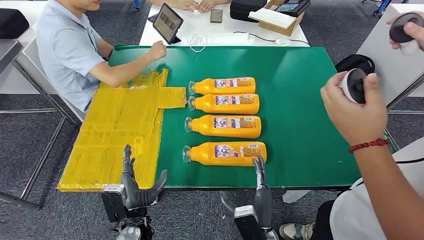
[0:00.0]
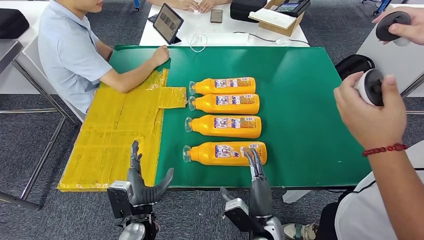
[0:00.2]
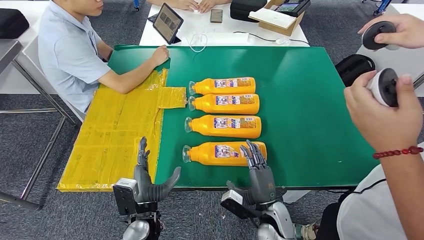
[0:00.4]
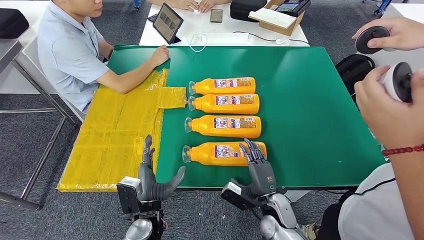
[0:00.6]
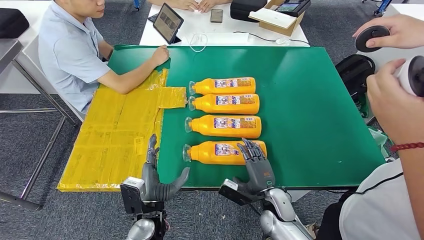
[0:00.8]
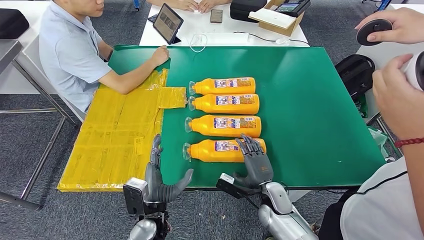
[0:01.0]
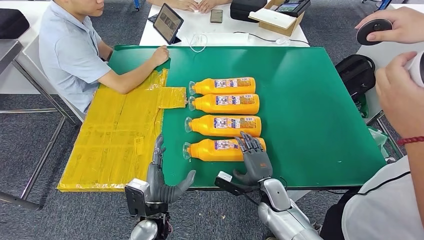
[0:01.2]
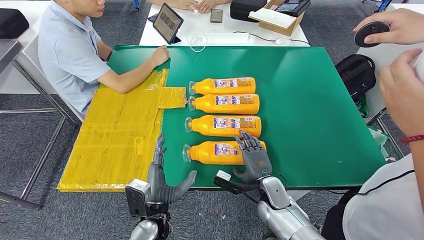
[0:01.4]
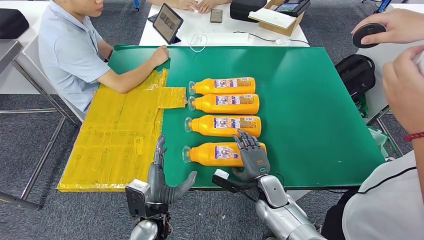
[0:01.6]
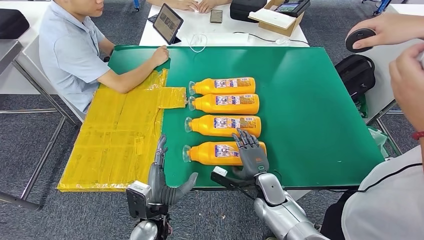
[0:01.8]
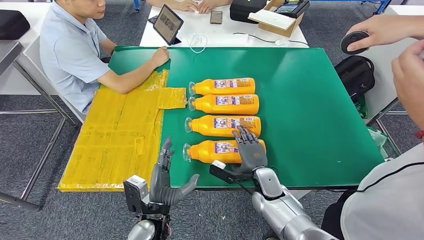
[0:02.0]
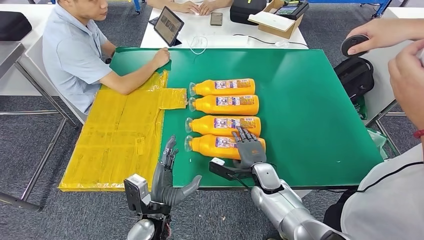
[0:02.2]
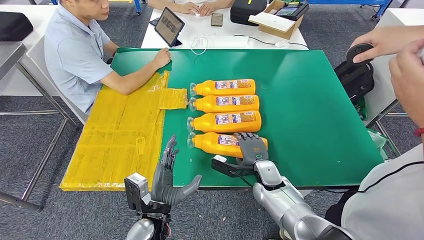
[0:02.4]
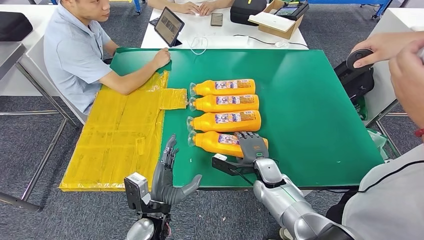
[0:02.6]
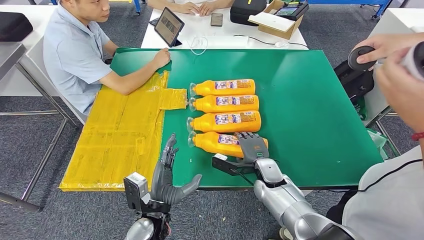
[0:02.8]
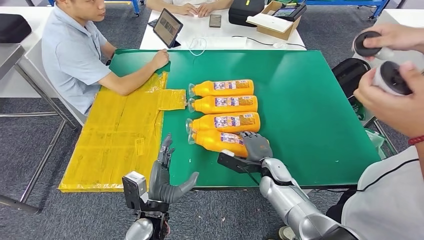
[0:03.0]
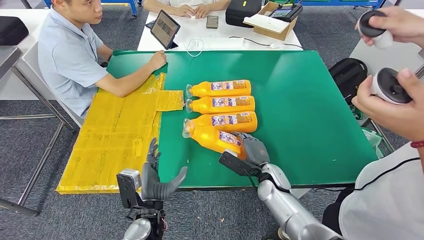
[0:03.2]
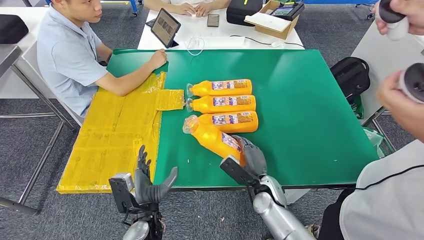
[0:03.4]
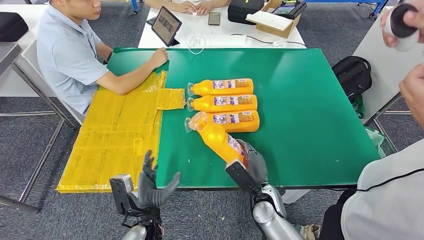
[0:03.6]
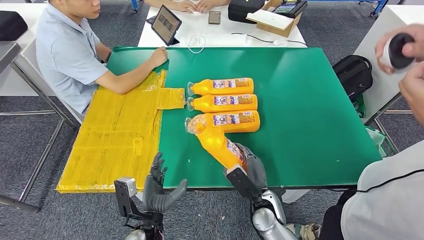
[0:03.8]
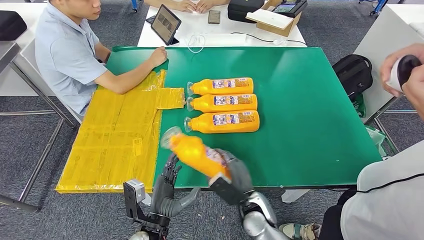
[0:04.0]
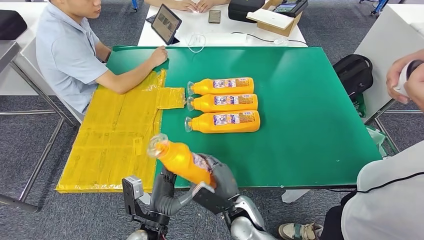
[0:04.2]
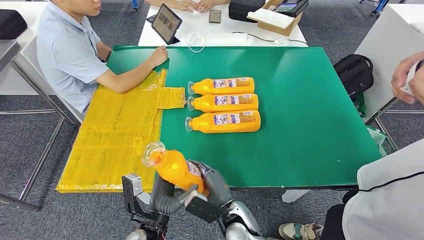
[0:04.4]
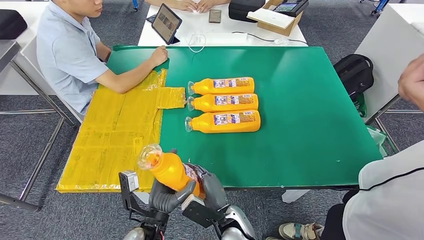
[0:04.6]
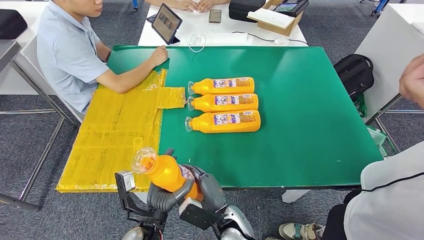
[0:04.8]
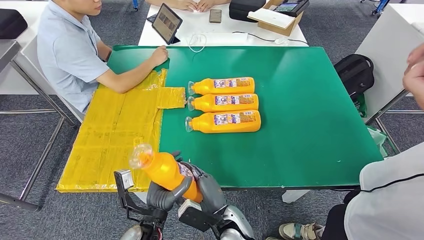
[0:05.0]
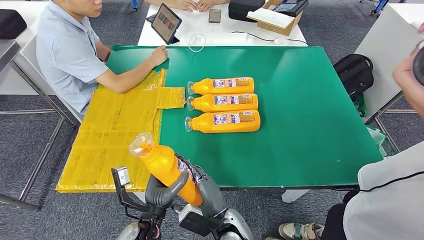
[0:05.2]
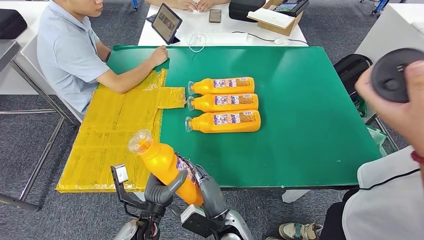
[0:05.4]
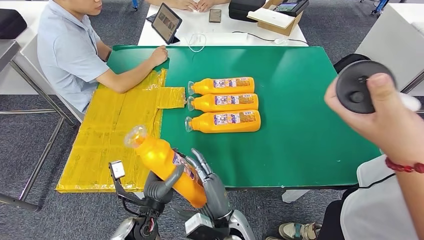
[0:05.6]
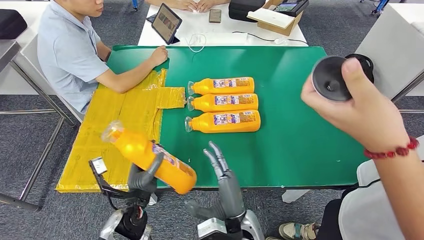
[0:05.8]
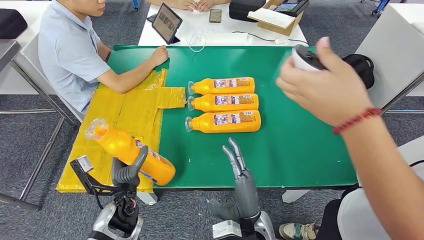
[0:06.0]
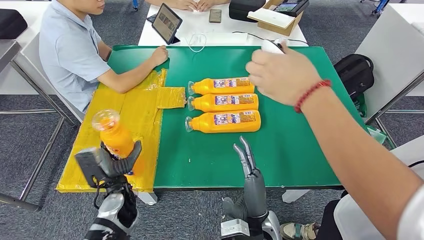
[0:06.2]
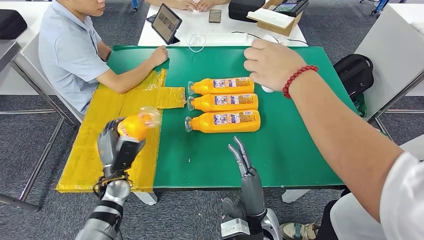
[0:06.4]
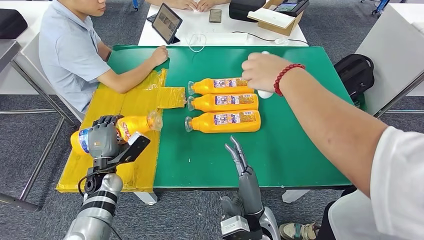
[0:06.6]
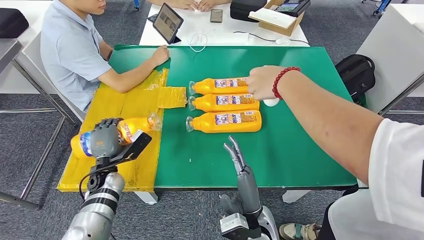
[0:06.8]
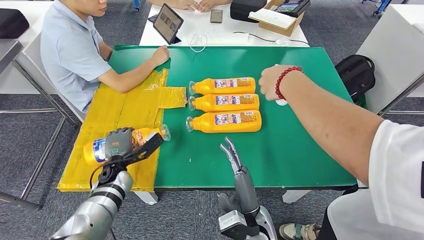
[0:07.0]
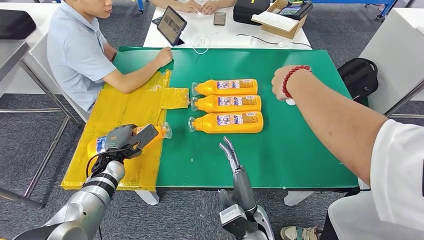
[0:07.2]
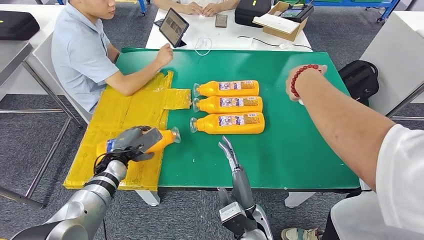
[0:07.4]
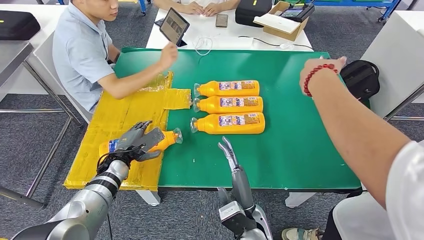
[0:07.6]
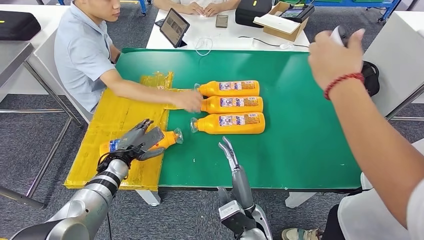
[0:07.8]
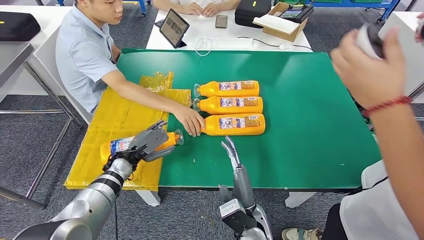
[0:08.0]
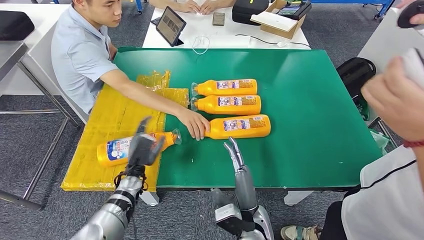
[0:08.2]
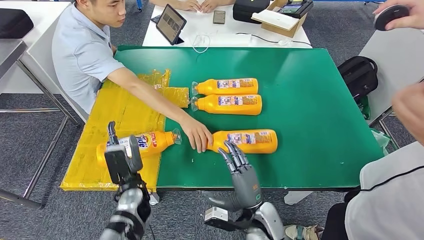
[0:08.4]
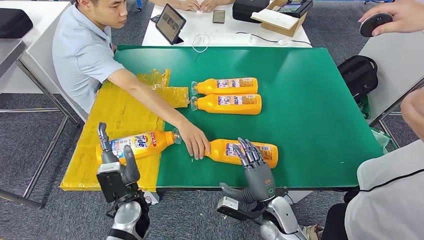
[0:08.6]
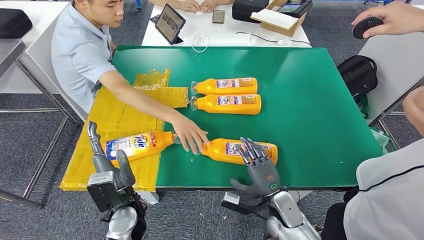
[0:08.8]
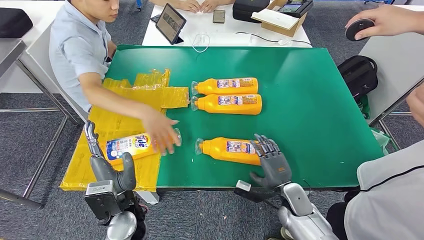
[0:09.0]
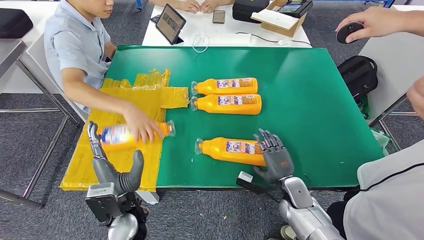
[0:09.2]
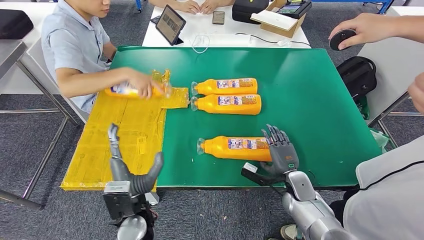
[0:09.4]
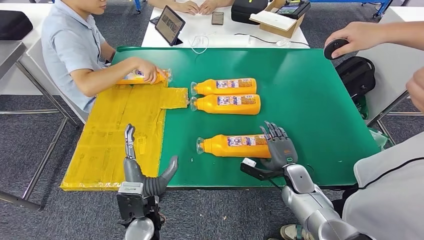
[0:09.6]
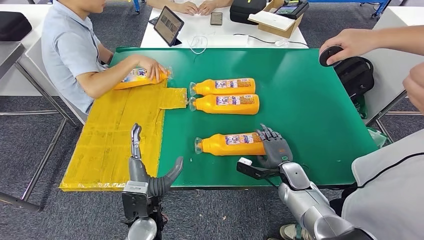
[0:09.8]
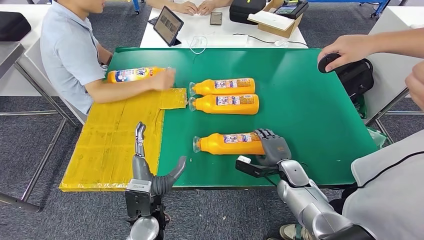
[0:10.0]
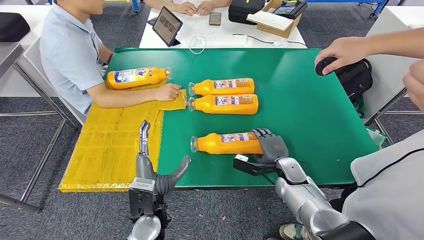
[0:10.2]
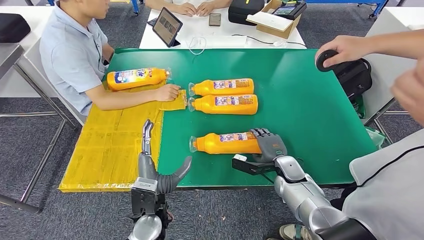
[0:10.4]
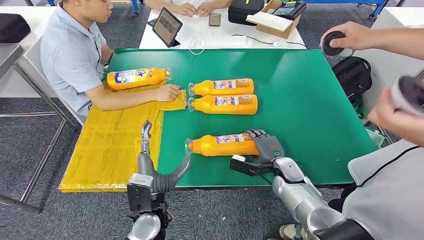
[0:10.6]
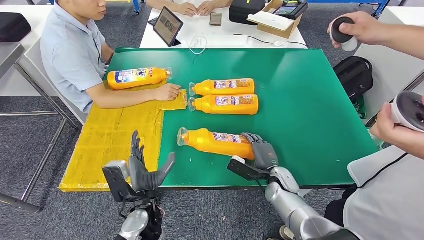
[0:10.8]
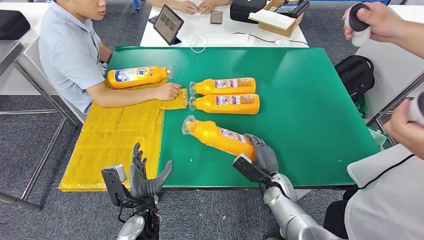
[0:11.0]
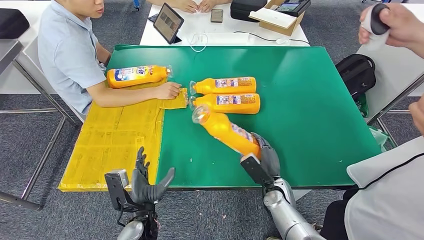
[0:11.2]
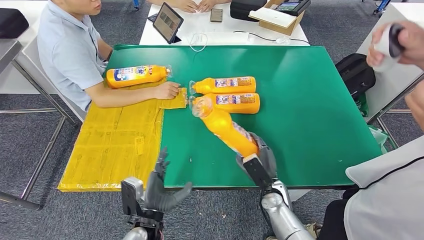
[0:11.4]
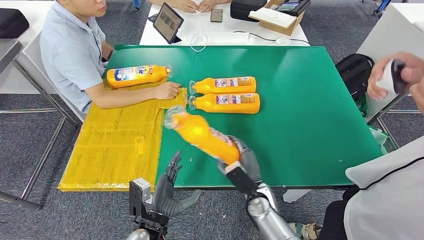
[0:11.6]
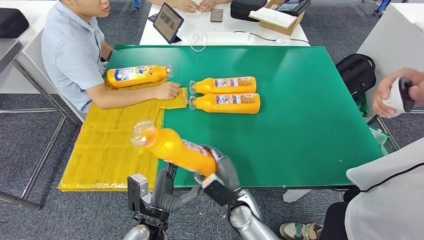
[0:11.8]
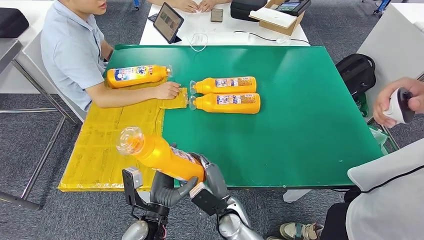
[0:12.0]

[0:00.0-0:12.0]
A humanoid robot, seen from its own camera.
Step, 0:00.0 to 0:05.4: Take the fast-moving consumer goods bottle from the table.
Step, 0:05.6 to 0:08.2: Flip the fast-moving consumer goods bottle to the front side.

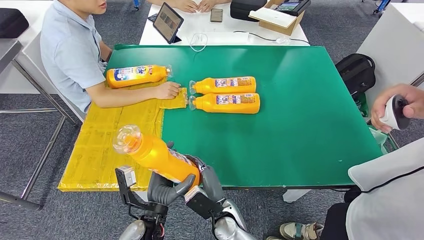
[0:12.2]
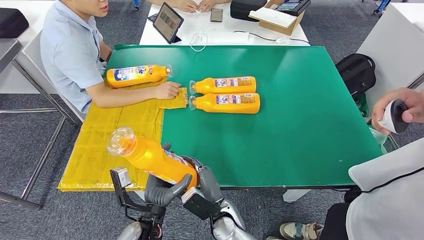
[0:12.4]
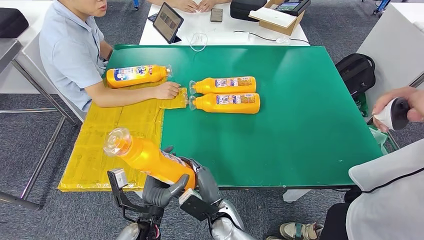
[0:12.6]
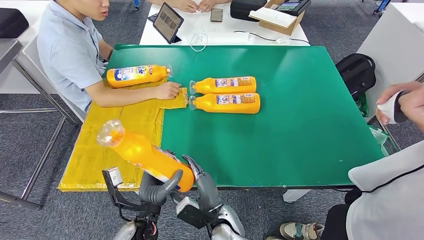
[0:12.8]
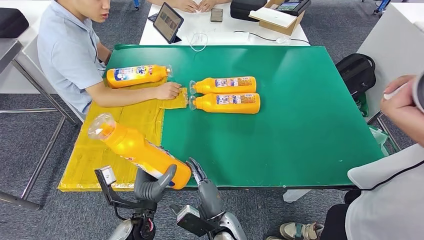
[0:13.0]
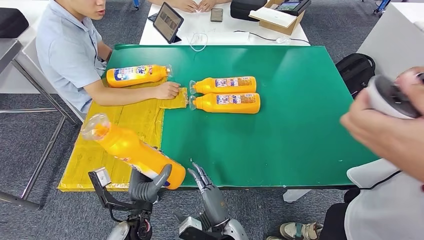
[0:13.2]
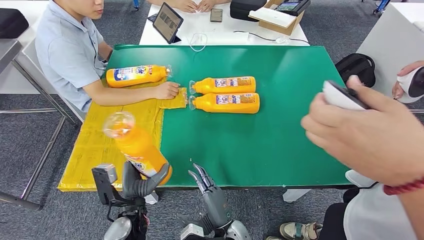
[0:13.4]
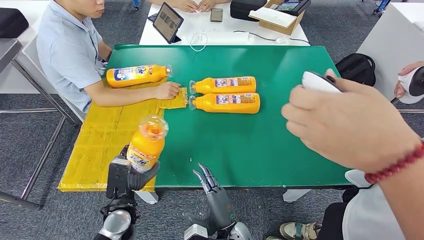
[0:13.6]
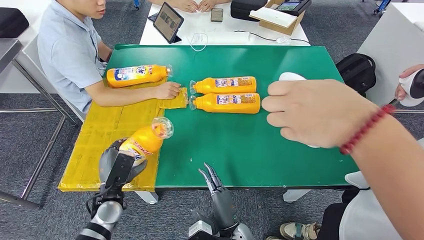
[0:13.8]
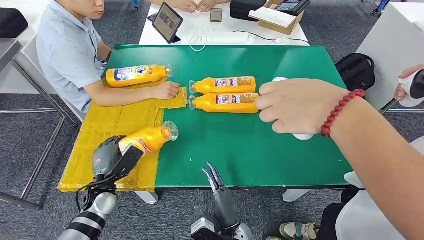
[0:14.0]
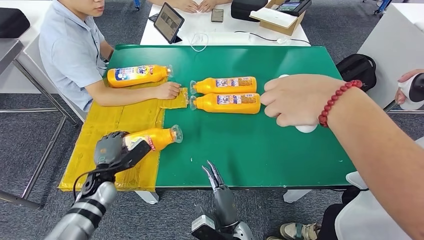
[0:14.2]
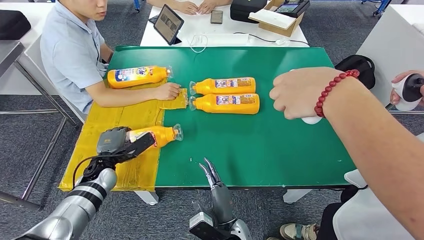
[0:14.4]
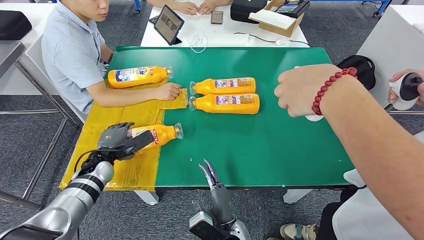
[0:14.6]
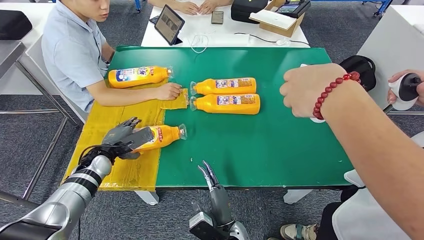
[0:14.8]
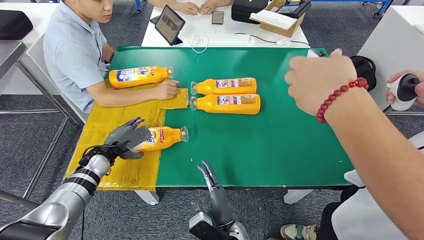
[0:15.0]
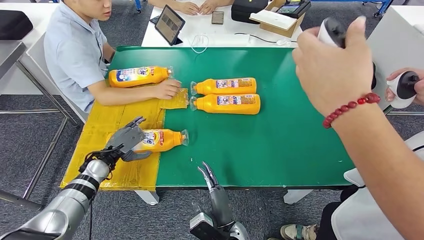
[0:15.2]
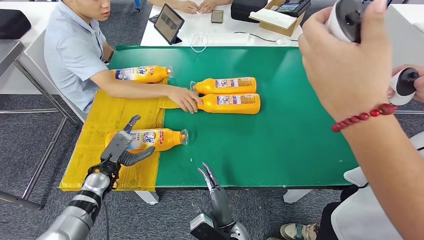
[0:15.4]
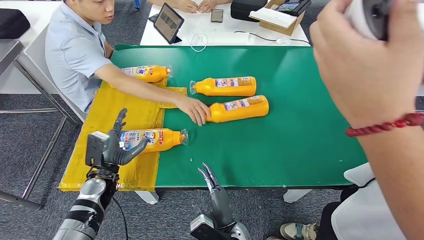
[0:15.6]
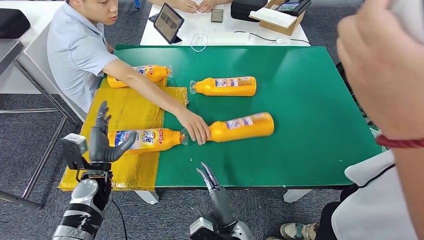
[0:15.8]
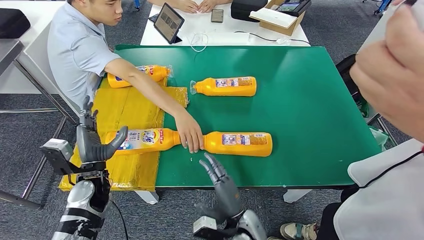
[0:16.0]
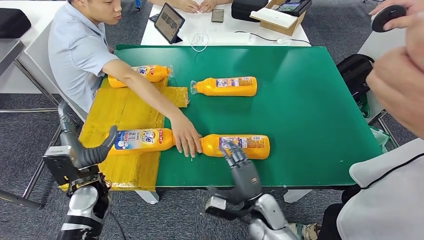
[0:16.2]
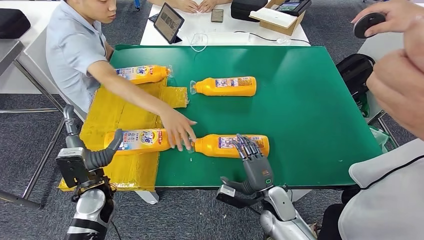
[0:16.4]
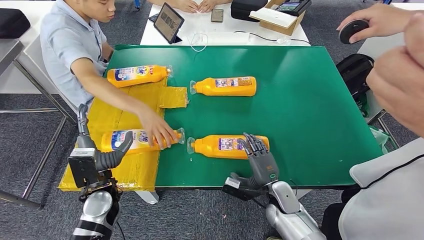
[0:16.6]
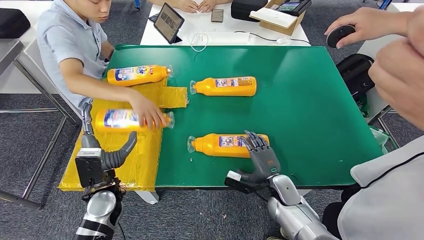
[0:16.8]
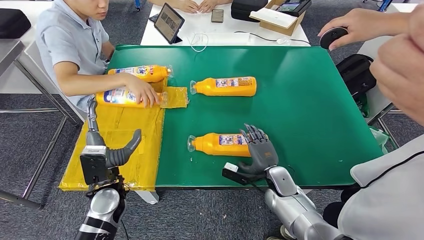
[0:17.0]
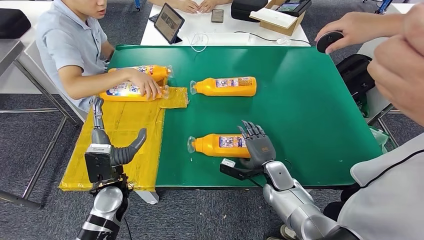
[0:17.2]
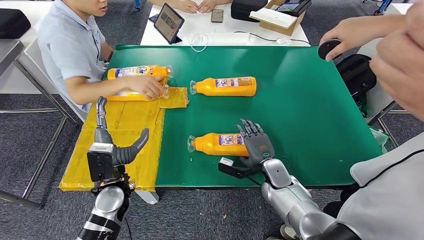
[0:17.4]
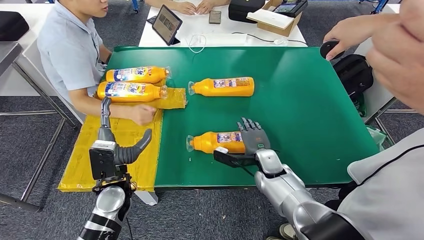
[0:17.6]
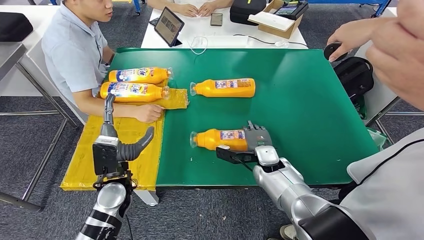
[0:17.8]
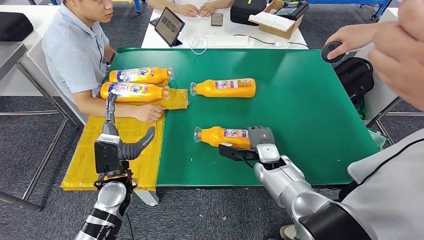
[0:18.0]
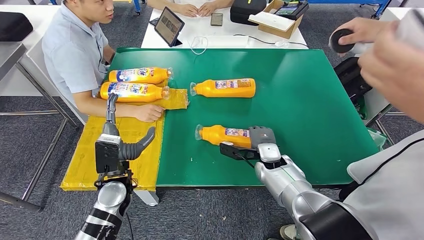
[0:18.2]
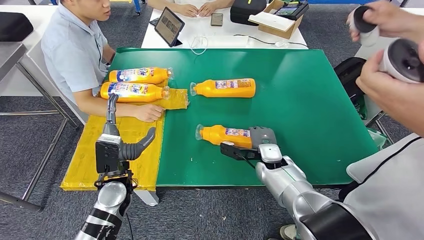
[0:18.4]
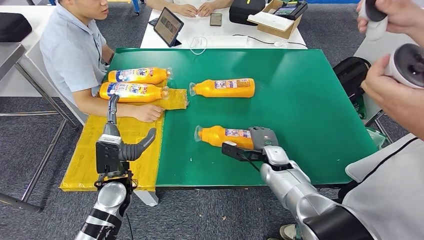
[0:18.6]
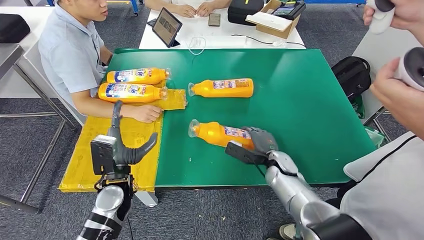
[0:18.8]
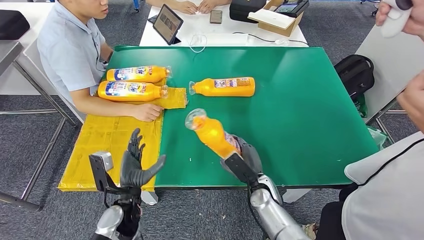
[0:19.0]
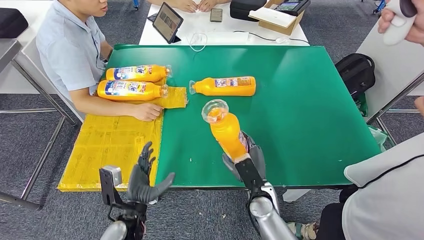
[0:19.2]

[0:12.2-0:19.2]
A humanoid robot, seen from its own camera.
Step, 0:12.6 to 0:15.6: Flip the fast-moving consumer goods bottle to the front side.
